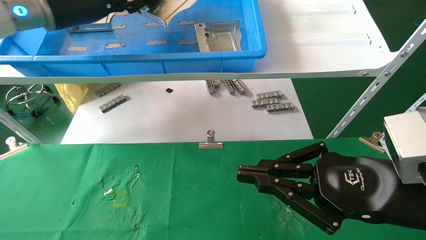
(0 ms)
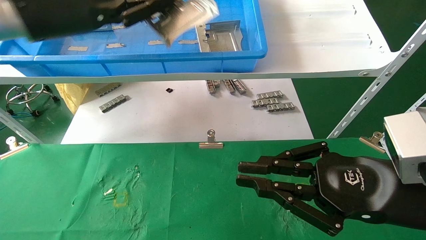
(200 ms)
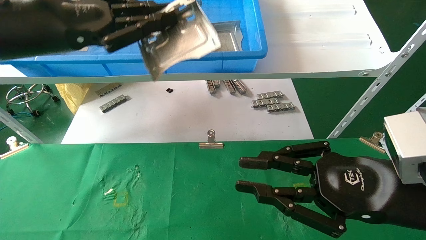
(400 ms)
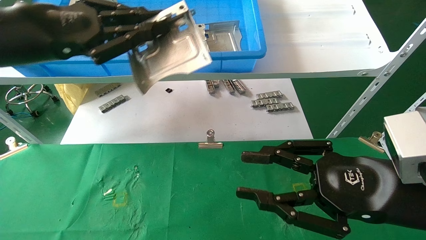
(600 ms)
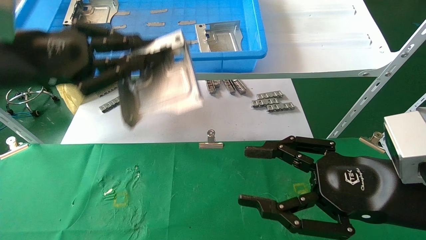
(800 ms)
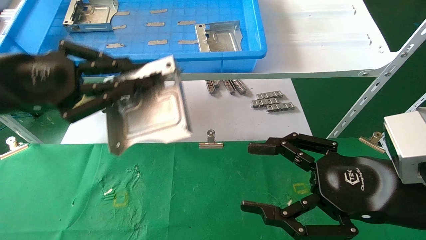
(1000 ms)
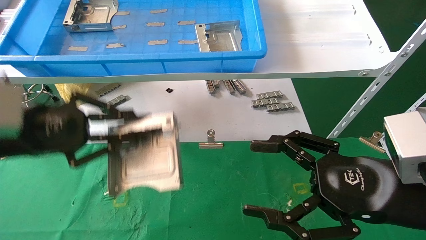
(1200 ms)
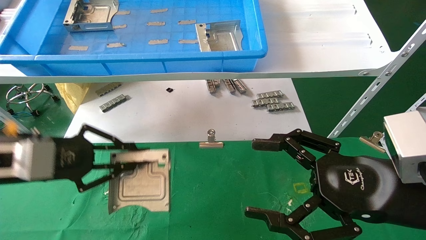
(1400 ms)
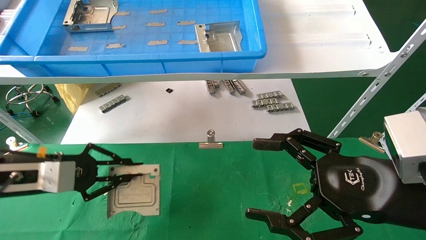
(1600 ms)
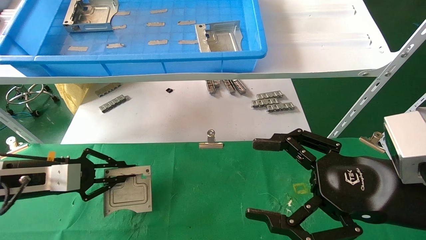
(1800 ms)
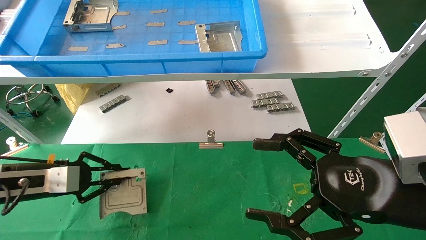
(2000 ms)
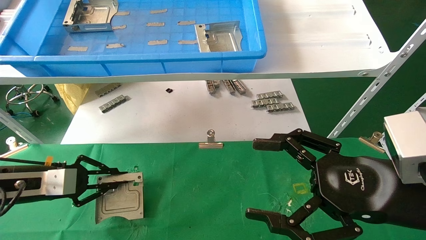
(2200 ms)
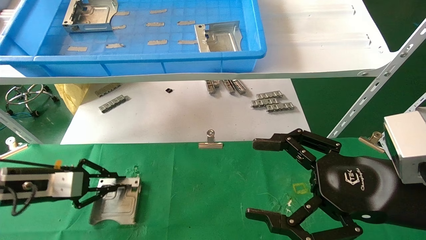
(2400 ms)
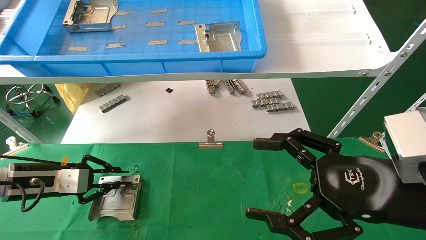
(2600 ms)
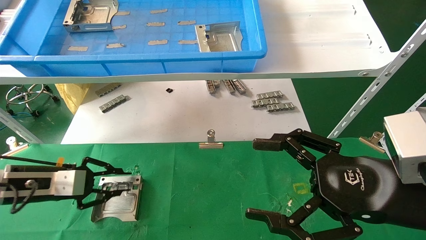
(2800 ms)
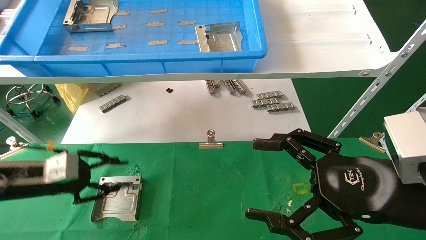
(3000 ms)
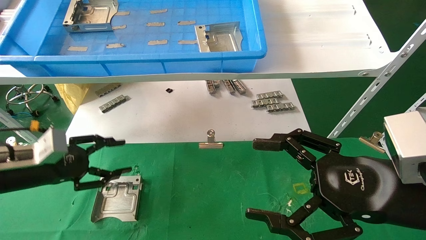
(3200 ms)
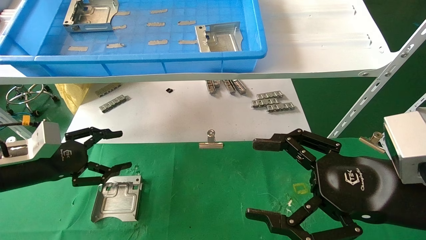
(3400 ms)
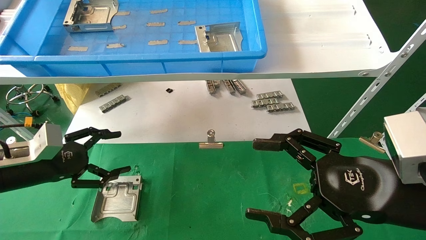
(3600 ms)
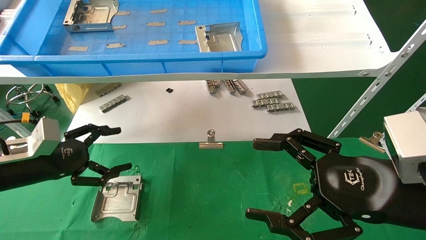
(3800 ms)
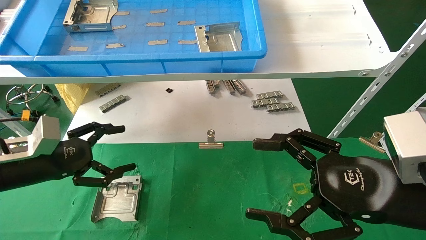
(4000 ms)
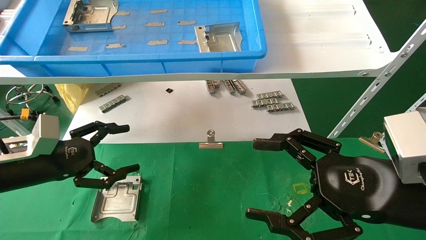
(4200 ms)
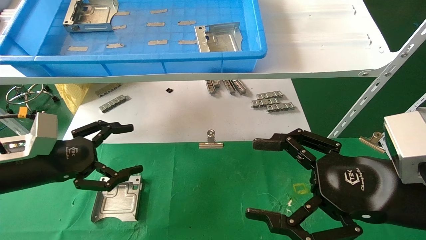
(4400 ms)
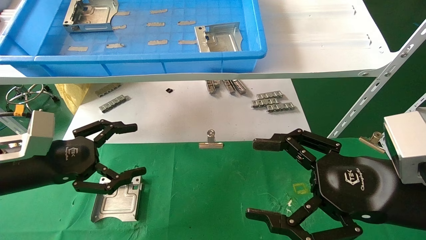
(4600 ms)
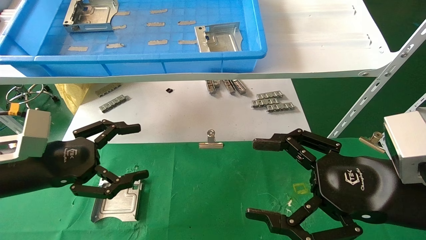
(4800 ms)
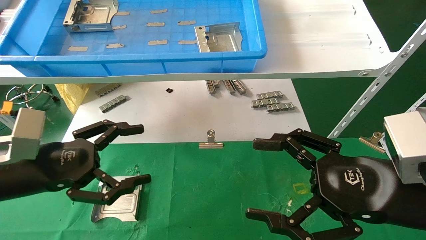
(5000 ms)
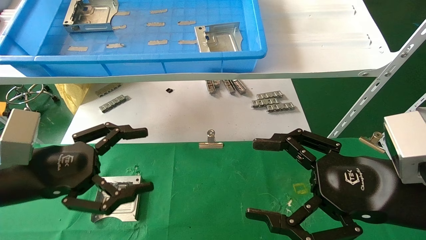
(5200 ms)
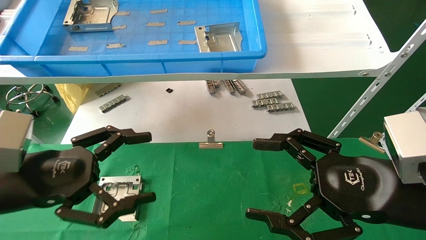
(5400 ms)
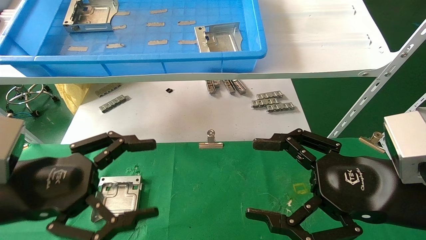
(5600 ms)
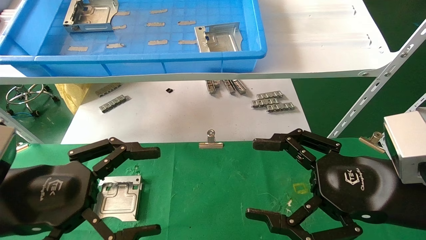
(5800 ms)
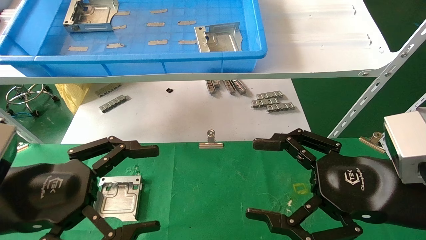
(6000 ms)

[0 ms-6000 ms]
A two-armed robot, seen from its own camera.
Task of the whole recording: use the mechanical arm to pick up the parts and place them on the table.
Step, 200 ms to 3200 ms: Place the hard drive bracket into the box.
0 ms to 1600 ms: The right gripper opens up. Meanwhile the left gripper heads downward, covering about 25 cm.
3000 ms to 4400 ms: The left gripper shifts by some 5 cm, and opens up.
4400 ms to 6000 ms: The left gripper shifts some 15 cm backward and to the right.

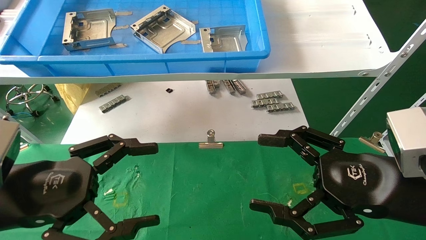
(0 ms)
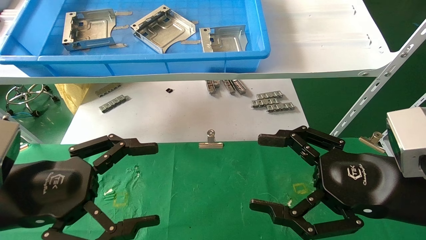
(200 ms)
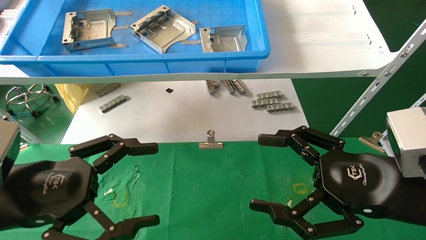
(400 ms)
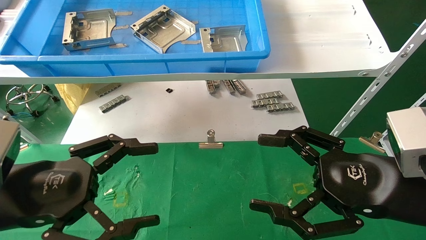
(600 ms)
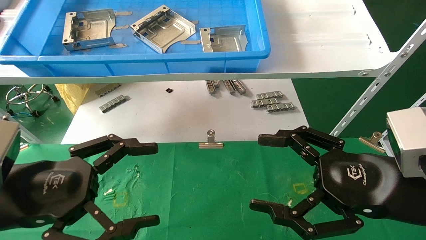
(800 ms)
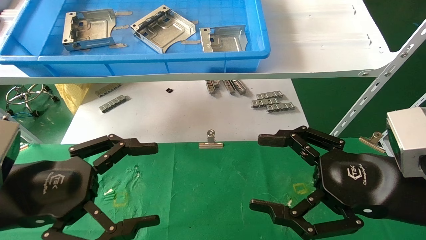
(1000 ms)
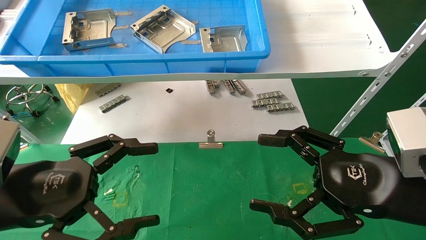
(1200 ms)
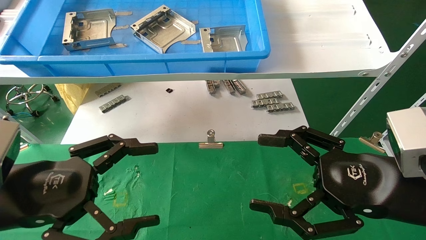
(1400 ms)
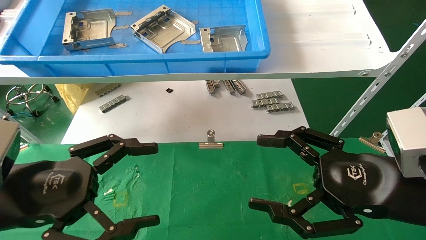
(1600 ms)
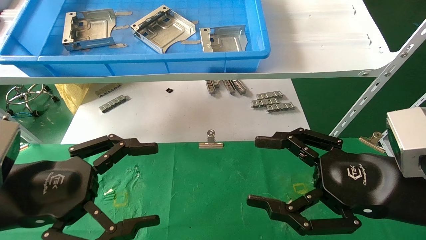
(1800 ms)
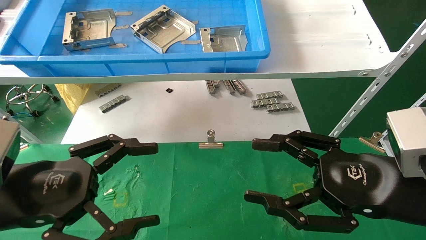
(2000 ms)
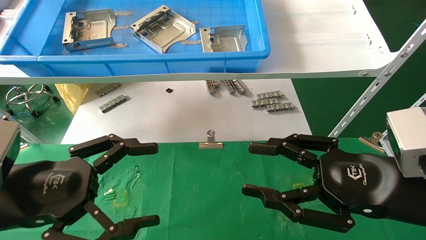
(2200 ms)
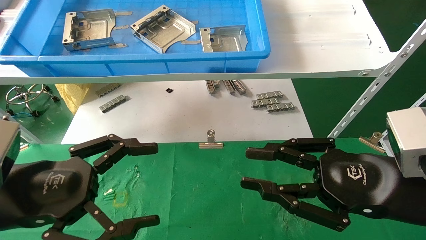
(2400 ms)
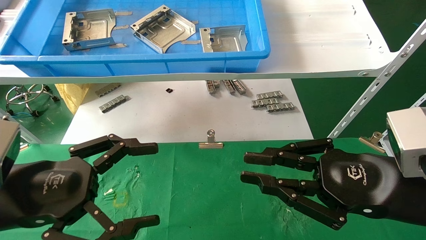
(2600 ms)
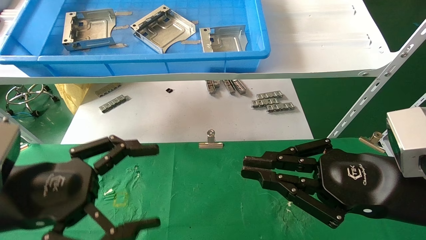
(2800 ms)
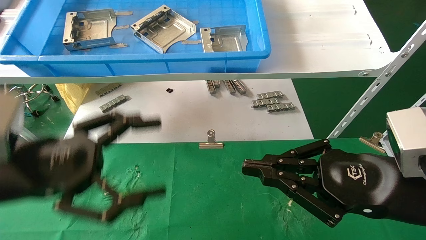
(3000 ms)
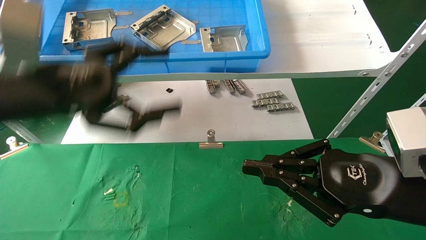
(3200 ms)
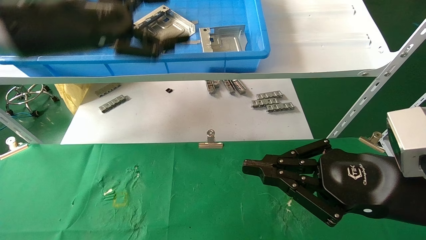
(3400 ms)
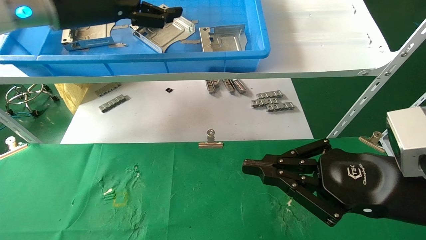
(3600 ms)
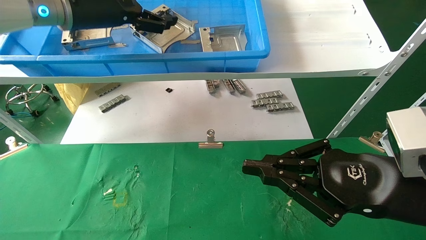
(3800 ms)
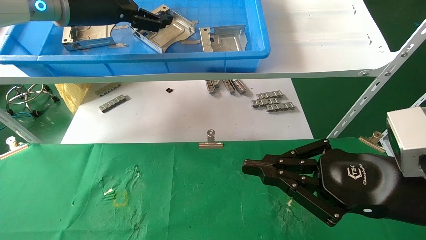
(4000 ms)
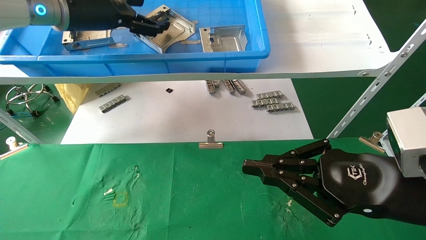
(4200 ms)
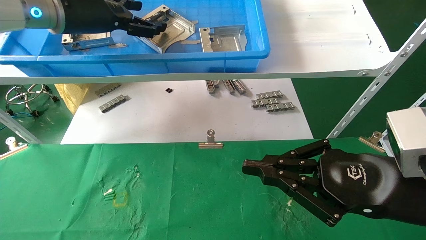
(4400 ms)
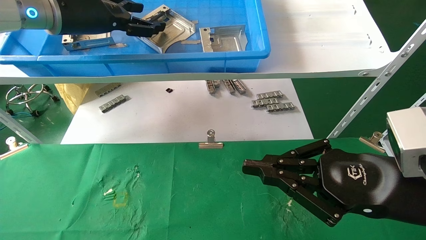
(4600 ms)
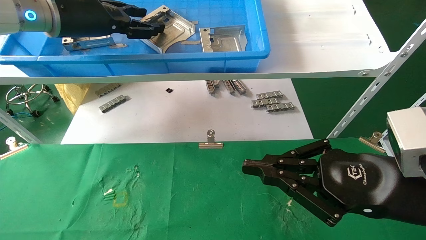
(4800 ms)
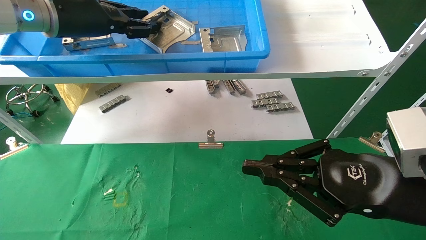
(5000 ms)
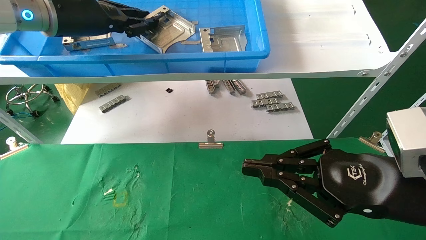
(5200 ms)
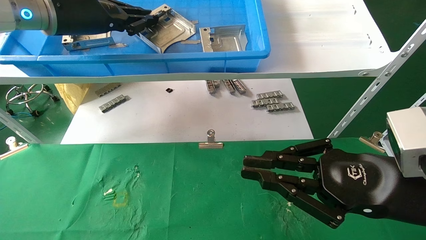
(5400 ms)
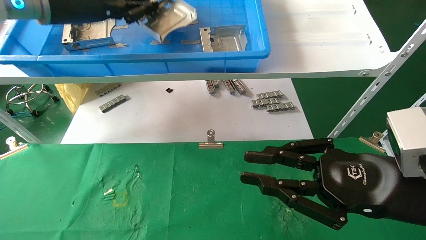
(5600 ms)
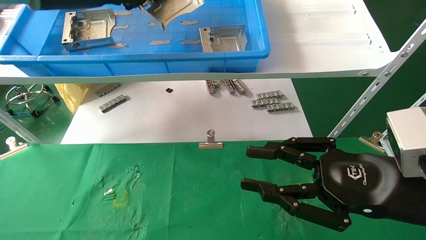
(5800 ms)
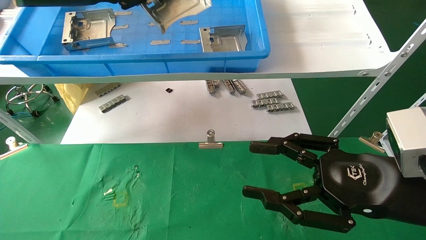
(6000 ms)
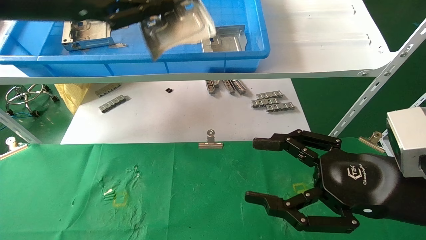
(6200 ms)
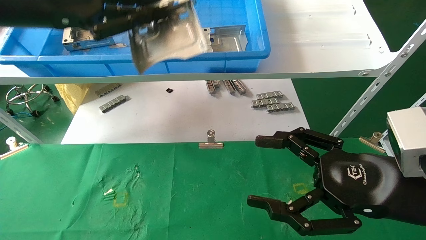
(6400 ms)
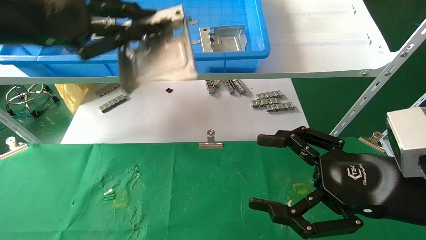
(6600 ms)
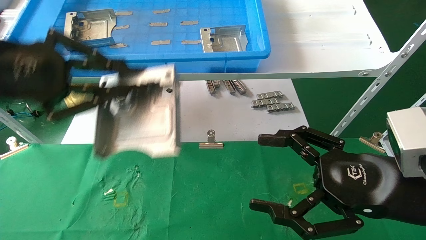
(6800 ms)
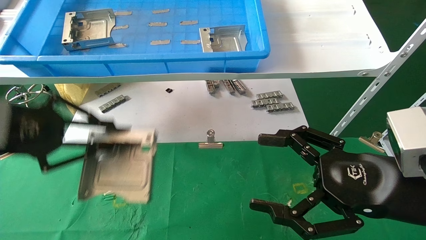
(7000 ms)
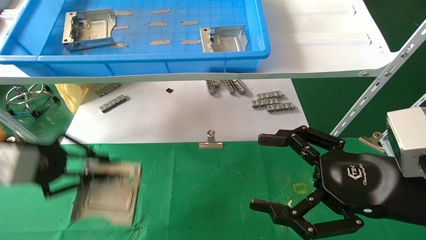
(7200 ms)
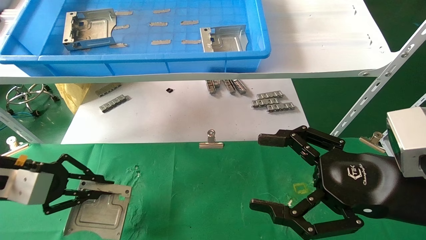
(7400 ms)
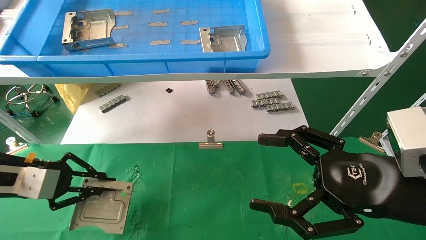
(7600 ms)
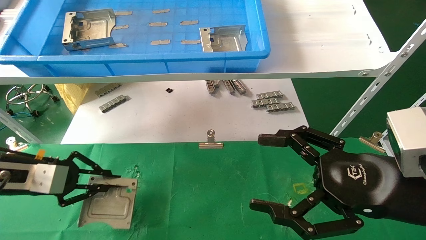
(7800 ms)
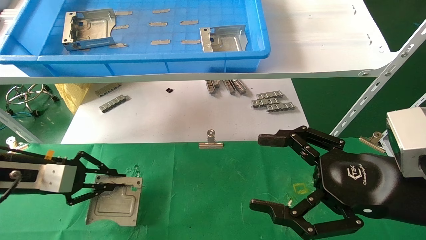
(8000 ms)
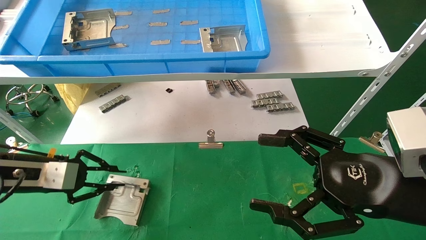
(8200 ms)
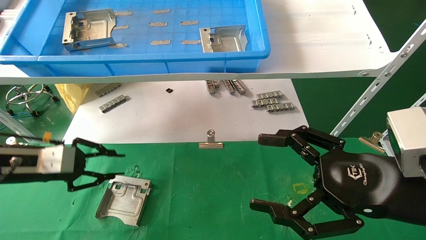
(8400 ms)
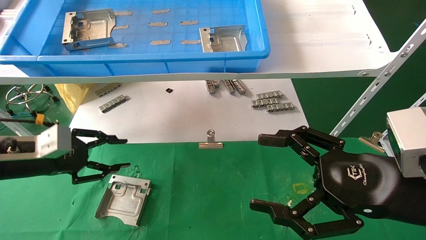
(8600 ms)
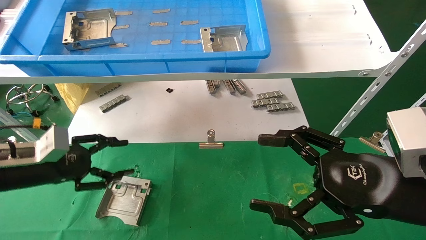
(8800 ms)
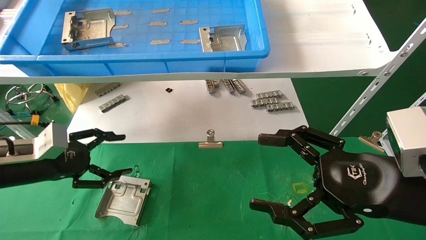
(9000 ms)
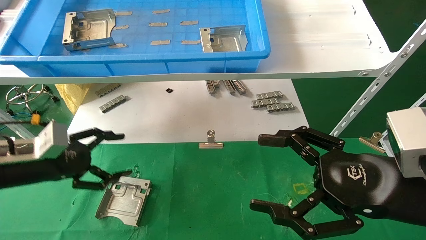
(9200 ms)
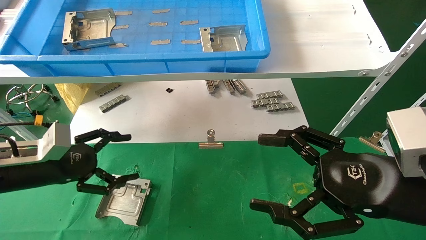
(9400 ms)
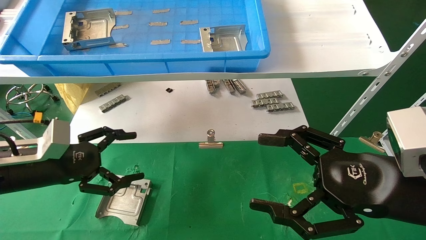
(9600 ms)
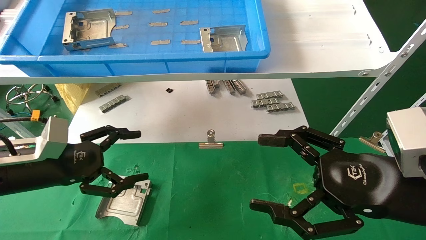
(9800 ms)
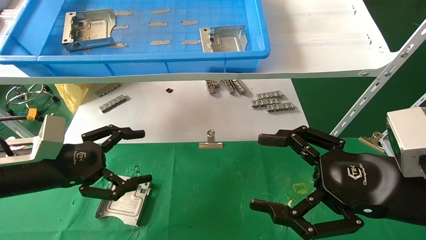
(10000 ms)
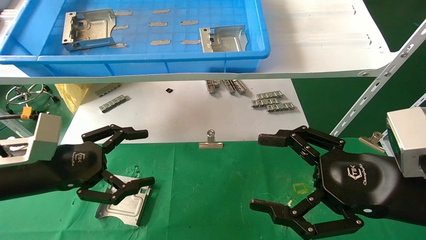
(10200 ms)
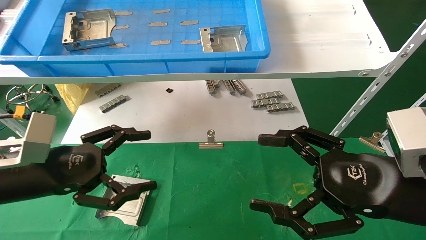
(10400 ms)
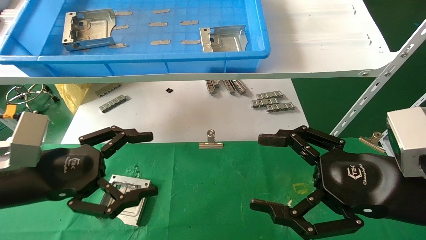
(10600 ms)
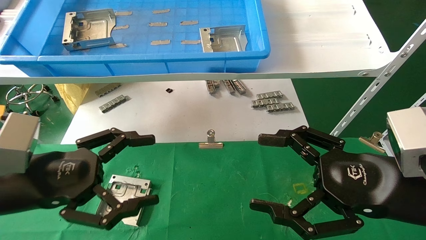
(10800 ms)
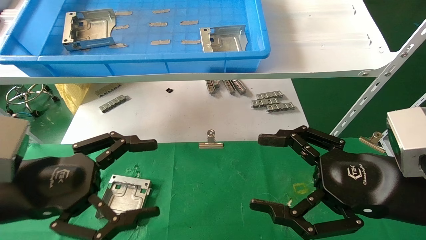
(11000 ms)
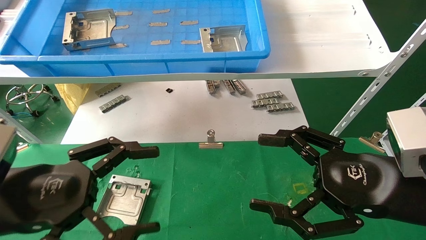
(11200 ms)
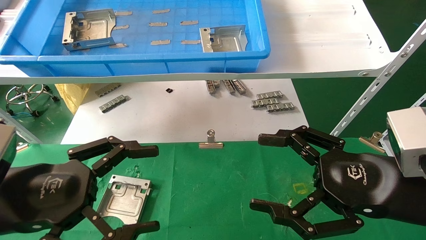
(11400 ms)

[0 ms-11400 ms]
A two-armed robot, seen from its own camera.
Task of the whole recording: use the mechanical arm to pick up the parts and place them on the table.
Step, 3200 ms to 5400 ms: Pick up the hard drive bracket from the feeding area.
Step, 5600 ms to 8200 ms: Place the hard drive bracket into the box.
0 ms to 1400 ms: Both grippers stay about where they are.
1400 ms to 2800 ms: The right gripper closes its fingers.
2800 ms to 4200 ms: The left gripper is displaced upward and forward by approximately 30 cm.
4200 ms to 5600 ms: The left gripper closes.
5600 ms to 7200 ms: The left gripper goes some 25 cm downward, backward and to the left; the right gripper opens.
7200 ms to 8600 ms: The left gripper travels forward and downward by roughly 10 cm.
8600 ms to 10000 ms: The left gripper shifts roughly 5 cm to the right, and opens up.
10000 ms to 11400 ms: The left gripper is displaced backward by roughly 10 cm.
